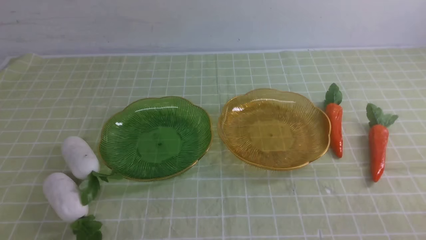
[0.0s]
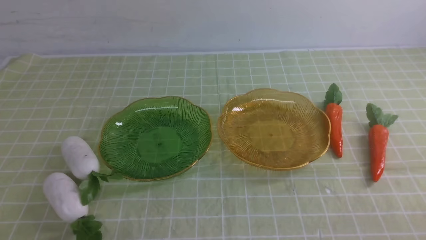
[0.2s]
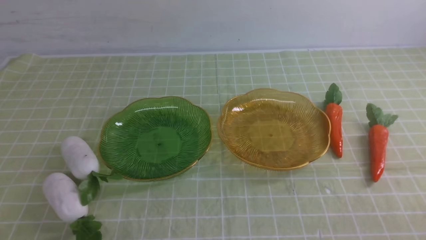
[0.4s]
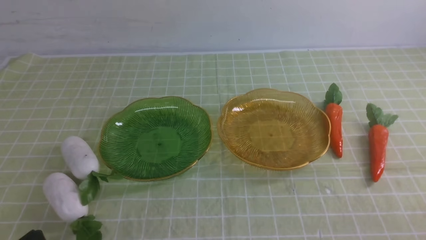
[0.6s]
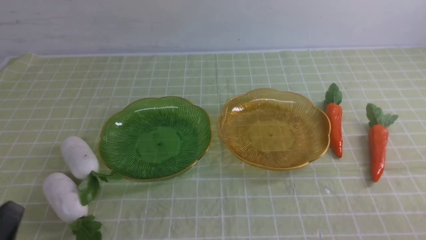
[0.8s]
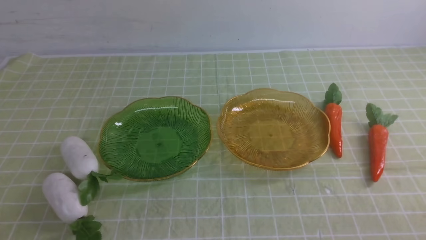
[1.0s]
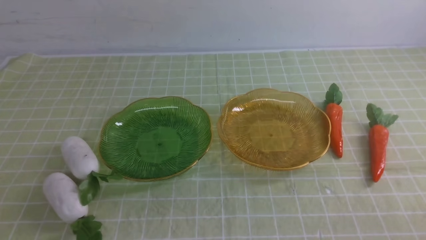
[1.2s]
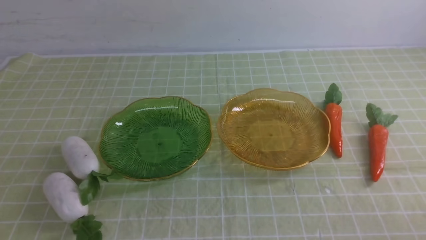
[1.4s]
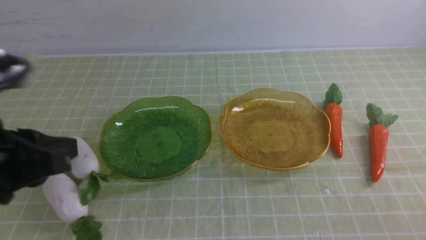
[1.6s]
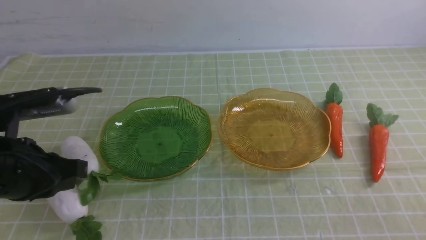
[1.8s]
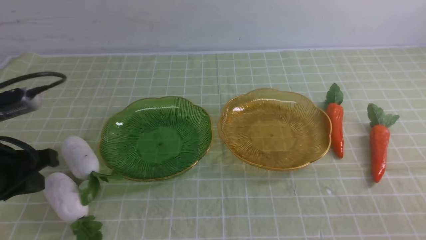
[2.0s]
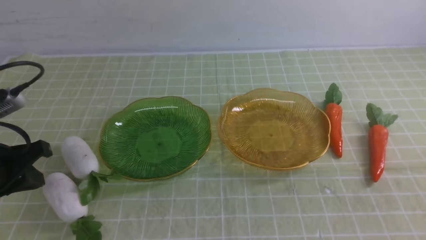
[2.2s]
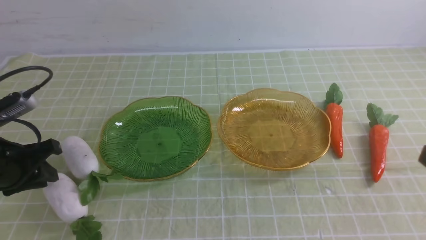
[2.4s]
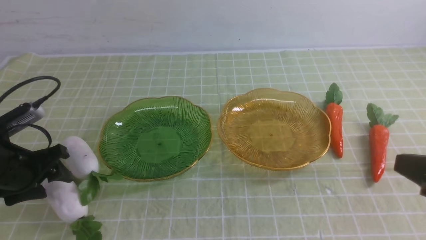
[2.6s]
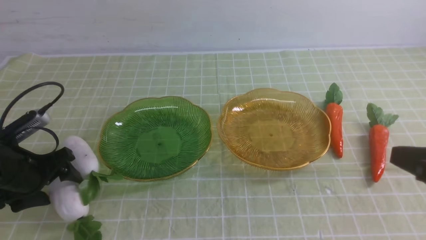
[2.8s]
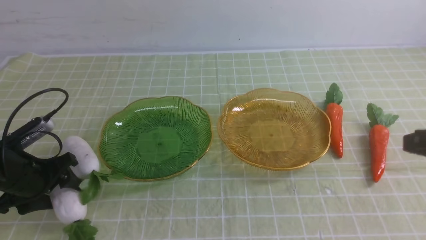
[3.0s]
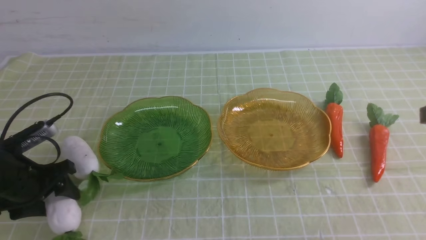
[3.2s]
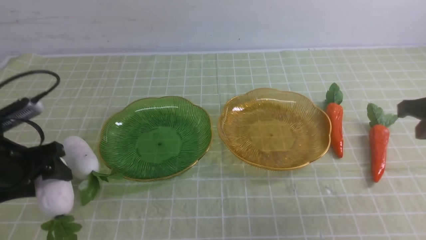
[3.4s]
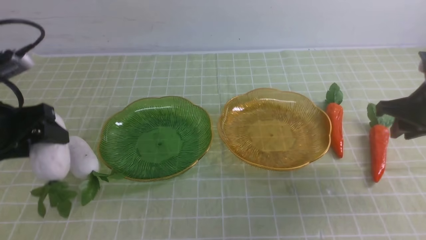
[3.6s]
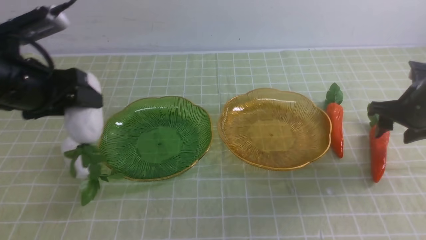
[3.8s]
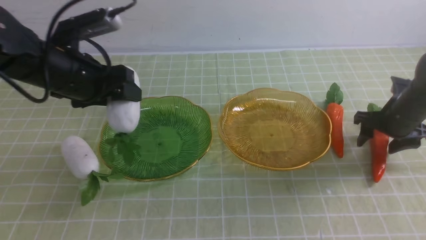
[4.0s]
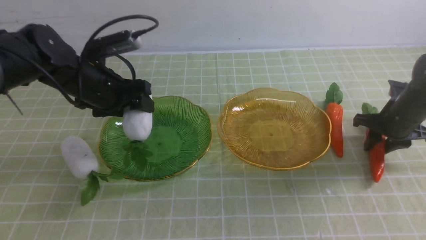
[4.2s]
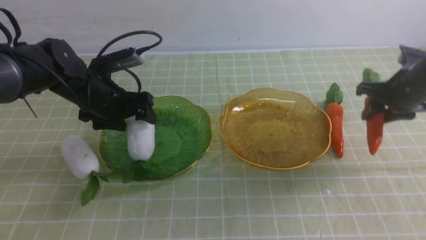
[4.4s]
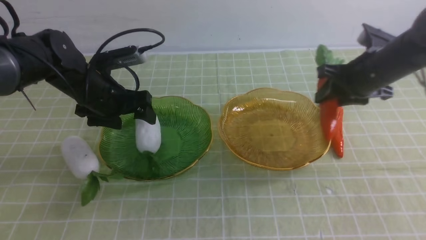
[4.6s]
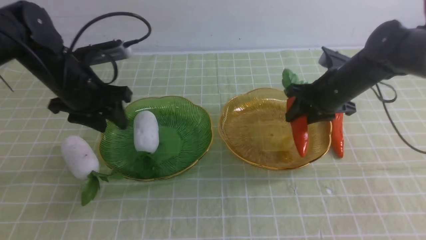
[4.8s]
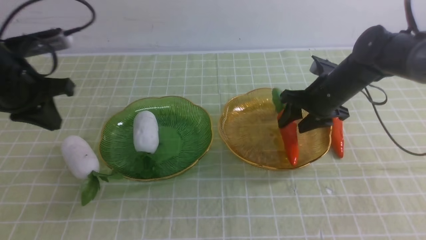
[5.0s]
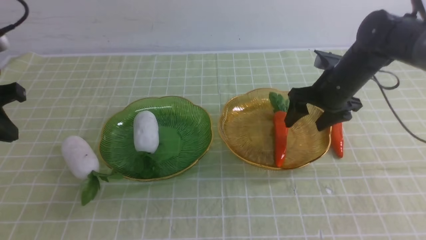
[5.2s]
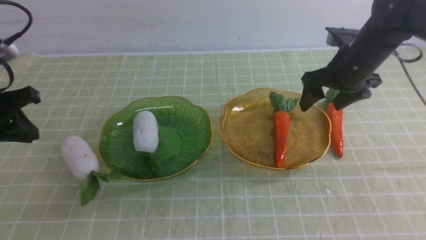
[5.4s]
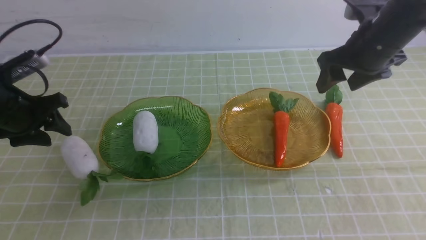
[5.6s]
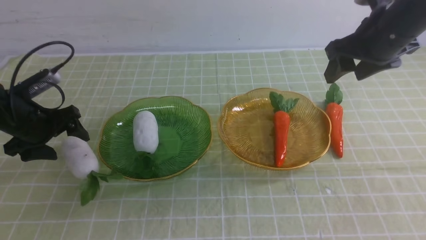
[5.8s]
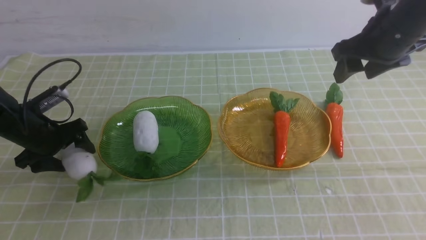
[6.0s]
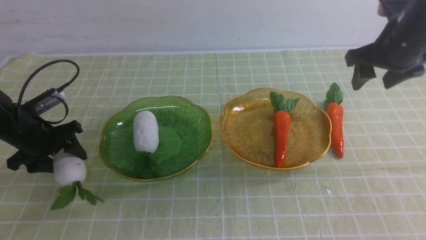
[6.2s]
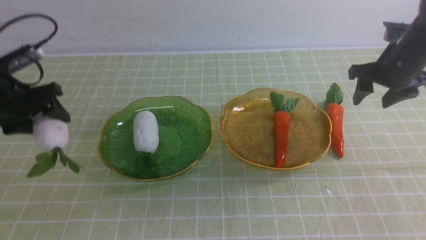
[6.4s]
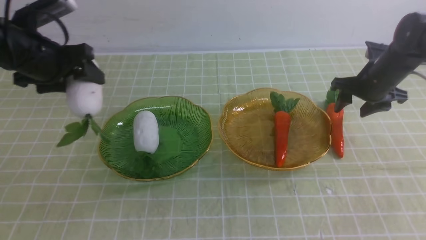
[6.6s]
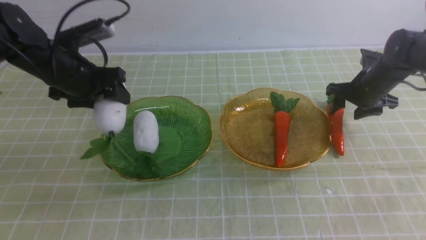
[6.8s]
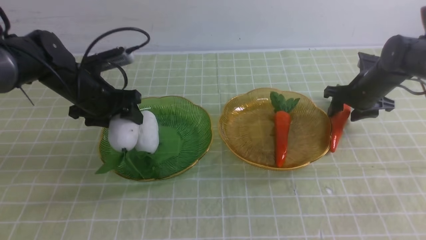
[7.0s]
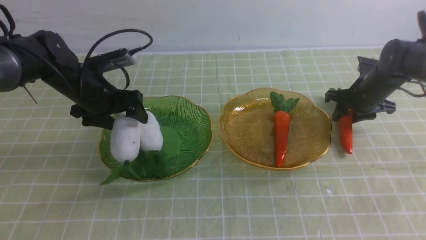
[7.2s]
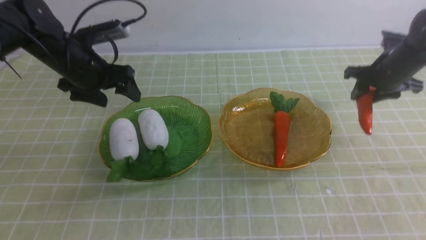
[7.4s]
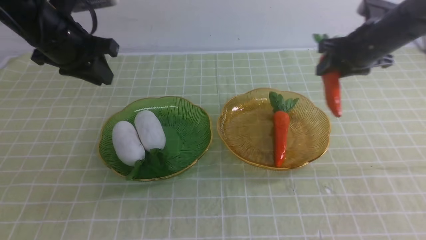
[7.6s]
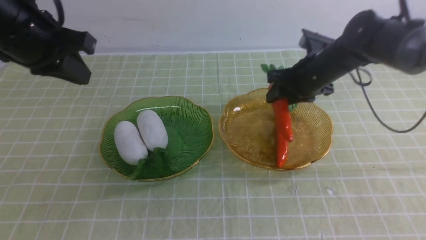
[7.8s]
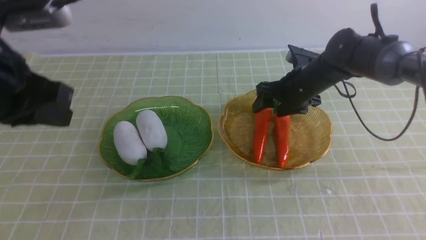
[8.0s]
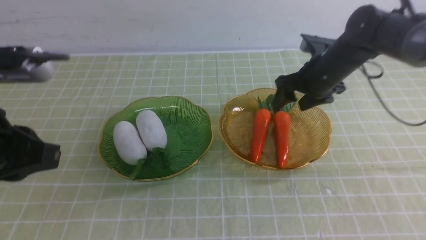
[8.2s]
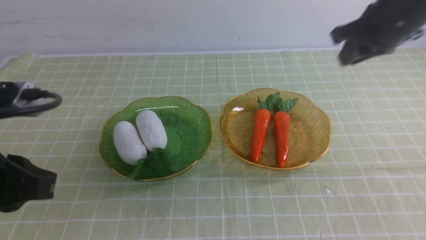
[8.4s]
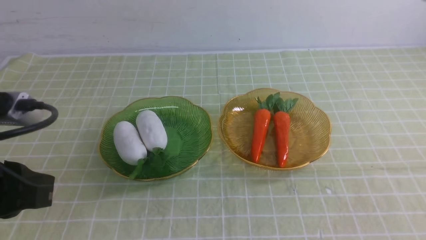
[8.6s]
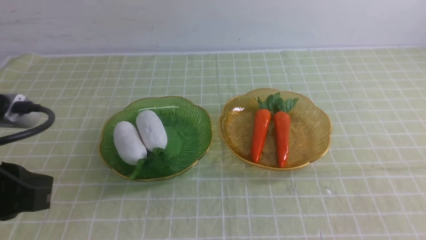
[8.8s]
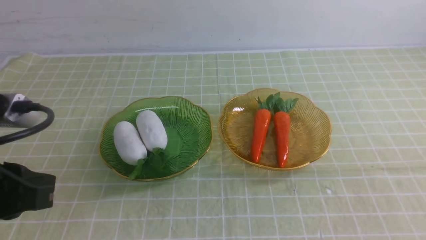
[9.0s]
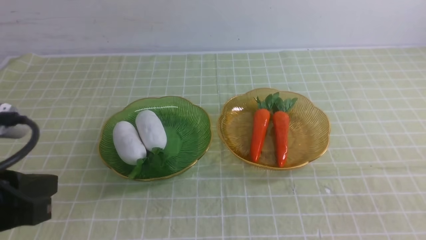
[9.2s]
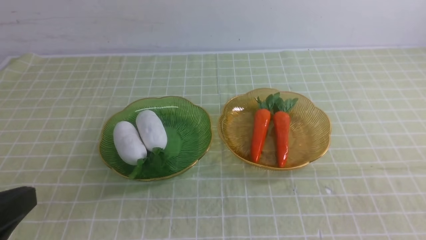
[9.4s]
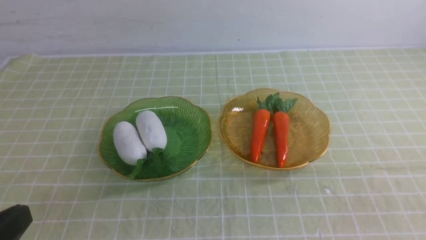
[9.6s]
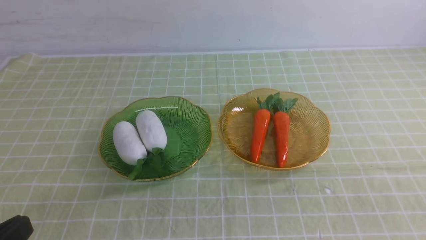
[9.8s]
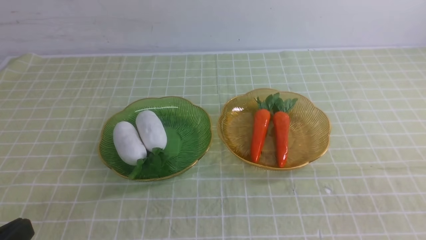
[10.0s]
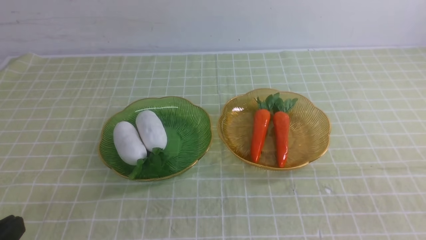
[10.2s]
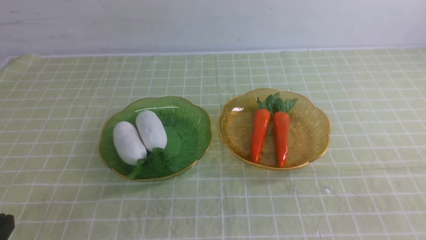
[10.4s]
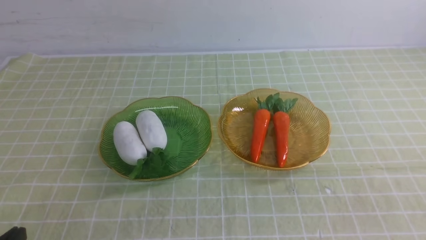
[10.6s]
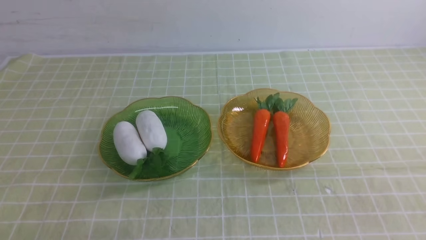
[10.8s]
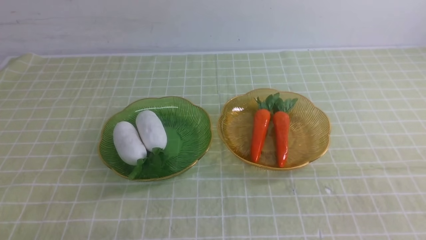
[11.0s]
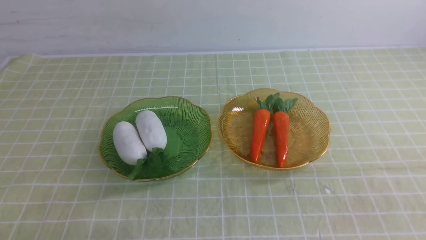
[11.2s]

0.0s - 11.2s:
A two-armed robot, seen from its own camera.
Step, 0.0s - 5.8s: use the left arm to grab a radish and put it into the left plate.
Step, 6.0s - 7.6s: use the left arm to grab a radish and put it into the left plate.
Step, 7.8s - 9.4s: use the right arm to grab a carrot and put it into the right plate.
0.0s - 1.6s: The left gripper goes approximately 20 cm upward and forward.
1.6s - 3.2s: The left gripper is displaced downward, forward and to the left by some 20 cm, and opens up; the right gripper moves forward and upward, some 25 cm.
3.2s - 4.8s: The left gripper heads upward and forward, covering approximately 10 cm, and closes its fingers; the right gripper goes roughly 20 cm forward, to the left and downward, and opens its fingers.
4.8s - 6.4s: The left gripper moves some 10 cm downward and comes back, and opens its fingers. The right gripper travels to the right by roughly 10 cm, and reaches some 15 cm upward, then returns.
6.4s - 8.0s: The right gripper moves to the left, some 10 cm, while the left gripper goes roughly 20 cm backward, upward and to the right, and closes.
8.0s - 9.6s: The left gripper is displaced backward and downward by some 20 cm. The right gripper heads backward, covering some 40 cm, and closes.
9.6s - 11.2s: The left gripper goes approximately 10 cm downward.

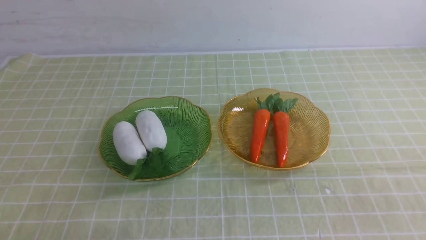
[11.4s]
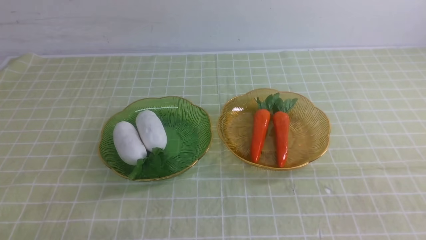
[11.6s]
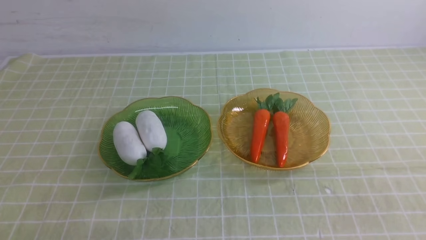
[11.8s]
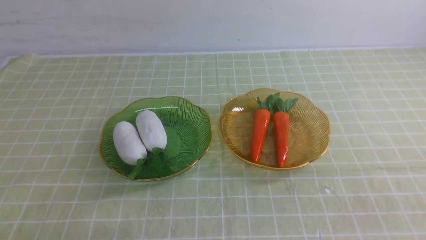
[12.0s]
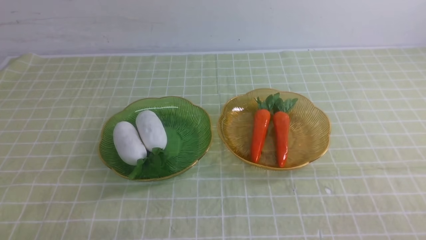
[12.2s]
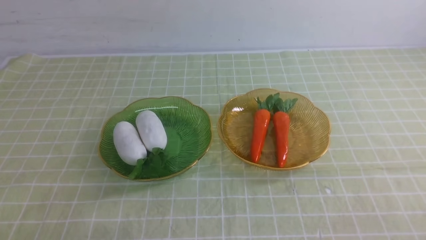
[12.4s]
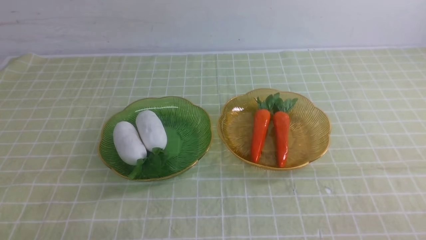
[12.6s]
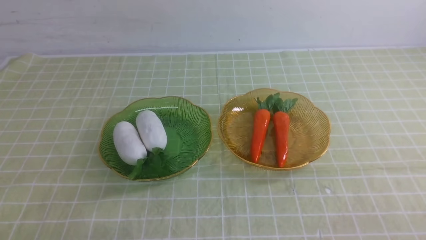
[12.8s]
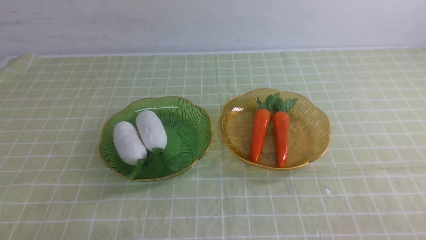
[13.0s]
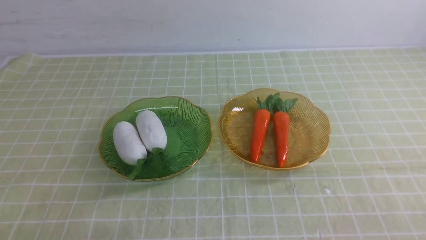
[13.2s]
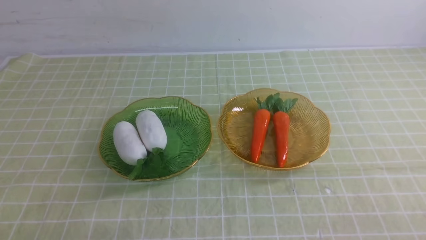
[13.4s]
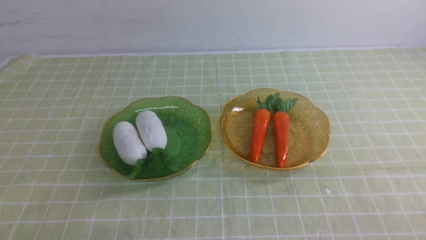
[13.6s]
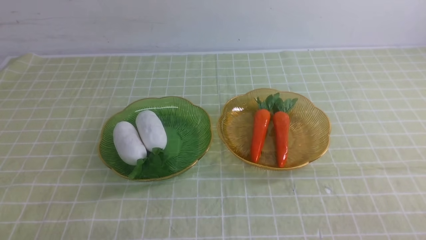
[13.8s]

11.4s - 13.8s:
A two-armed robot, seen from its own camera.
12.6s - 13.8s: The two grippers keep their place.

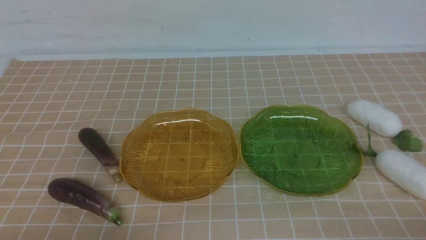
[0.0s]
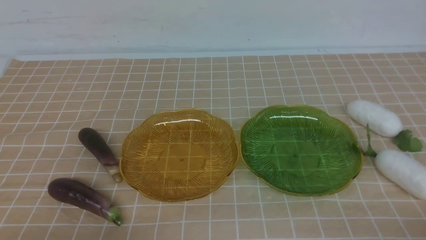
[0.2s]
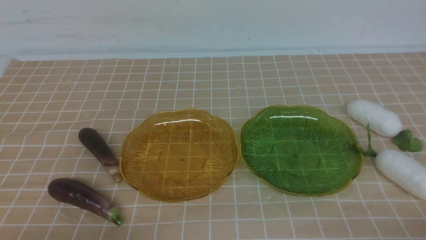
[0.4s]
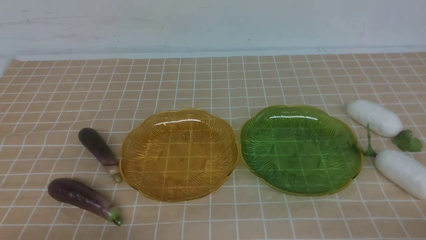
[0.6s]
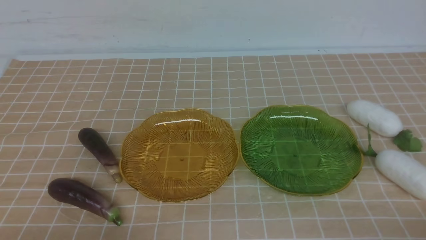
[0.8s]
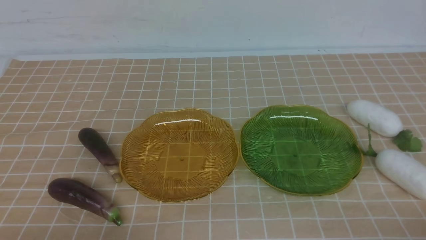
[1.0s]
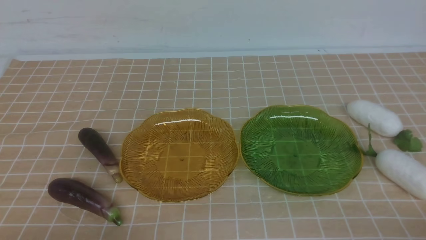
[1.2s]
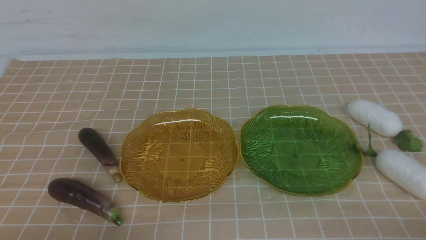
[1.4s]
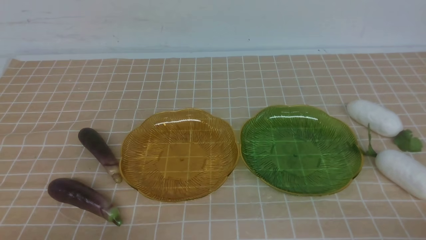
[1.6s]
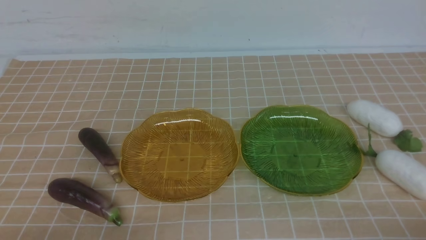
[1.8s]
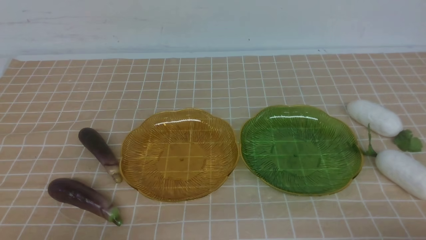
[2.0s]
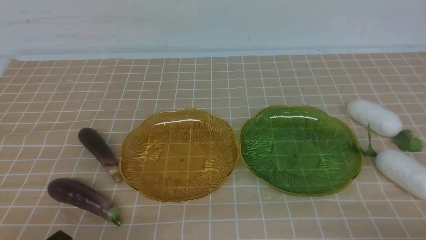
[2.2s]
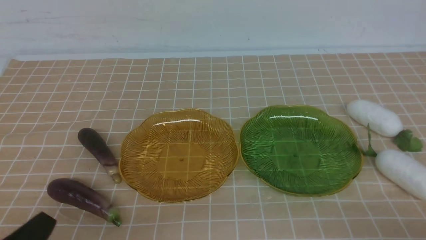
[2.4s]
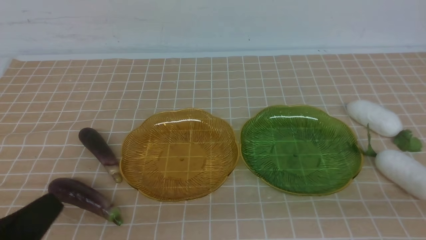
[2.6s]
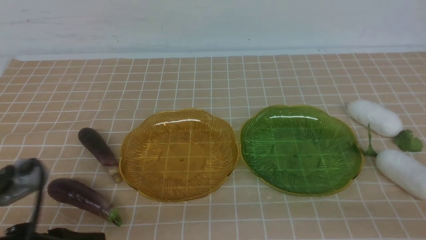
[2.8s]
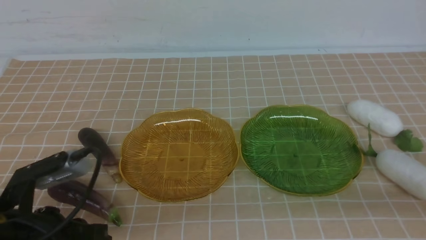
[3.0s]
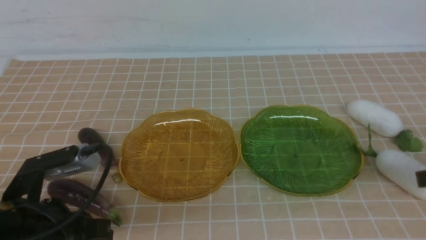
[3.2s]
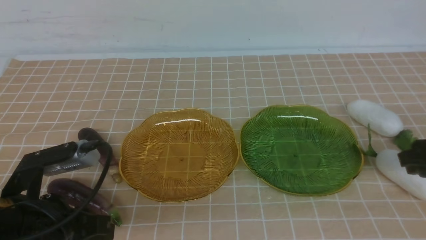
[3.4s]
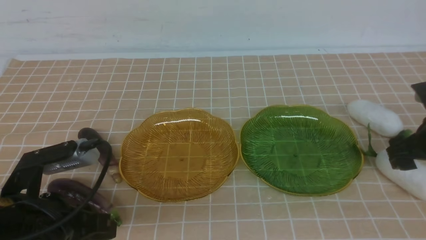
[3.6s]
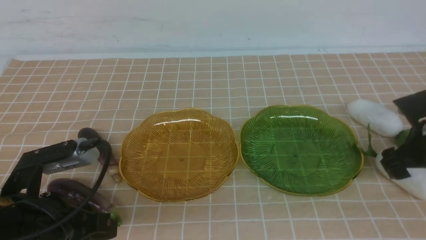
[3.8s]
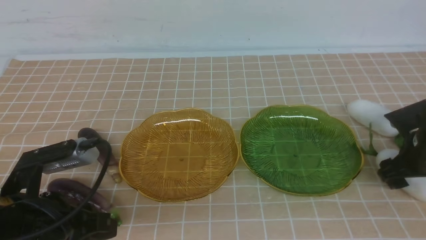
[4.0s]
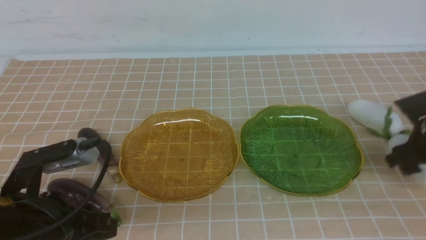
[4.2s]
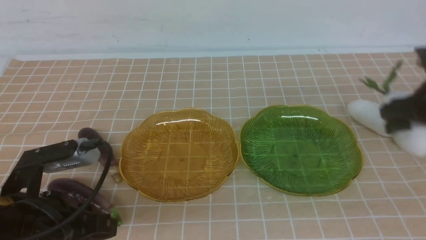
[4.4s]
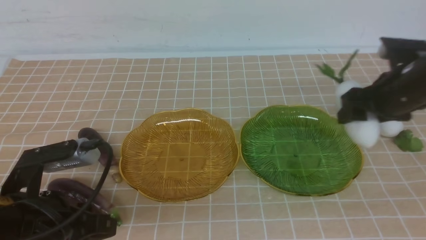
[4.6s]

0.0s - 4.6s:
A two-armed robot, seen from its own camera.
1.6s - 3.0s: Both grippers move upward and forward, about 10 cm.
3.0s - 4.6s: The right gripper shifts approximately 25 cm forward, and opens up. Meanwhile the left gripper opens its fingers.
